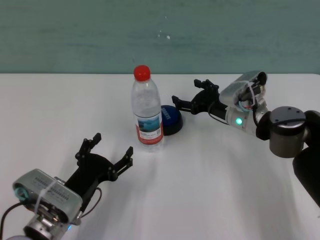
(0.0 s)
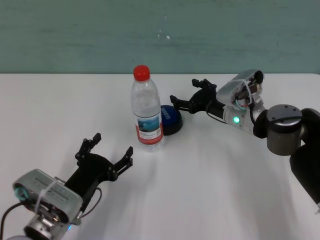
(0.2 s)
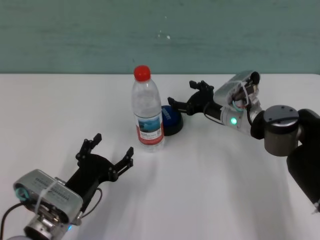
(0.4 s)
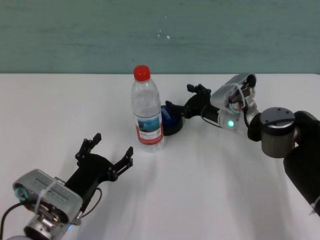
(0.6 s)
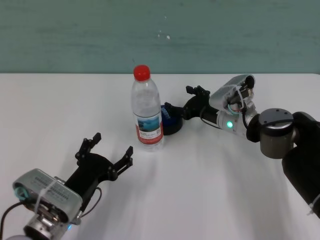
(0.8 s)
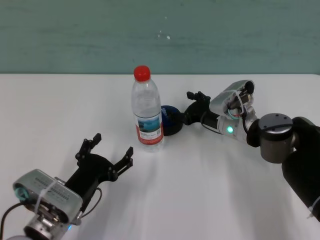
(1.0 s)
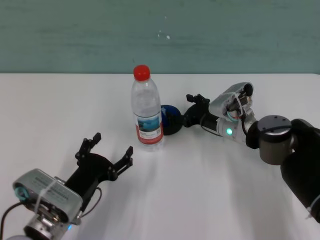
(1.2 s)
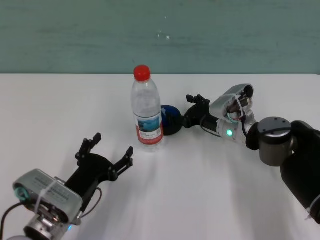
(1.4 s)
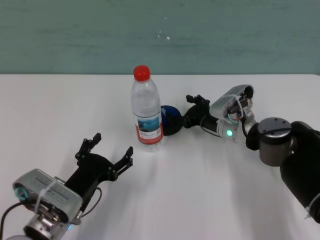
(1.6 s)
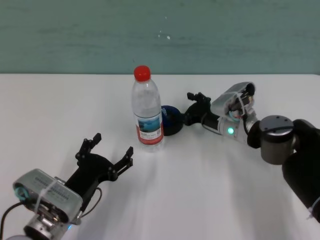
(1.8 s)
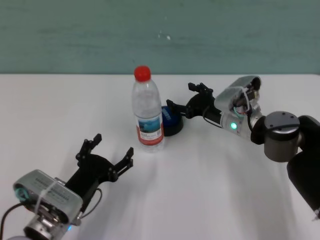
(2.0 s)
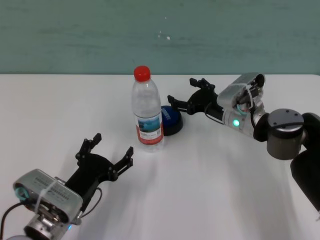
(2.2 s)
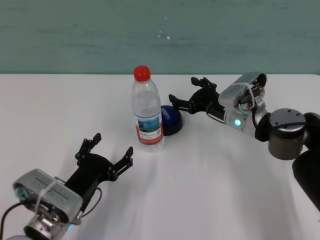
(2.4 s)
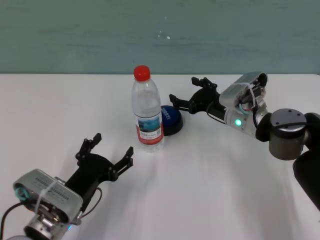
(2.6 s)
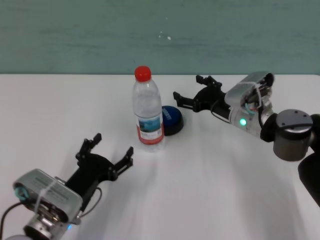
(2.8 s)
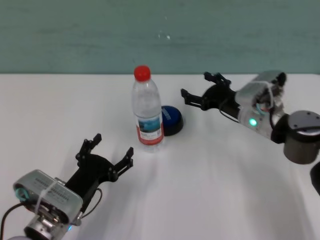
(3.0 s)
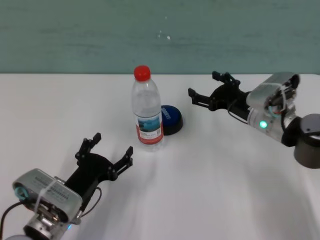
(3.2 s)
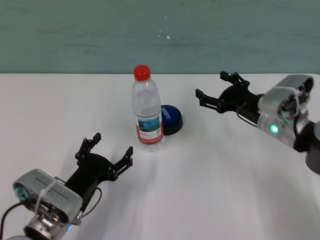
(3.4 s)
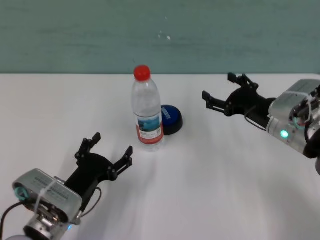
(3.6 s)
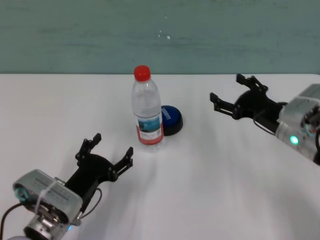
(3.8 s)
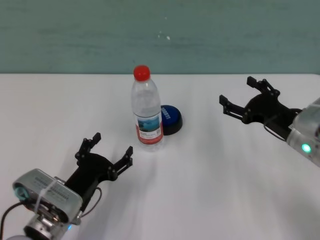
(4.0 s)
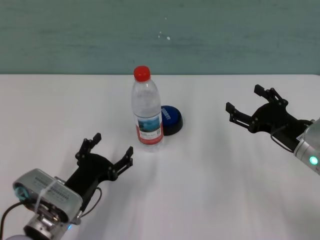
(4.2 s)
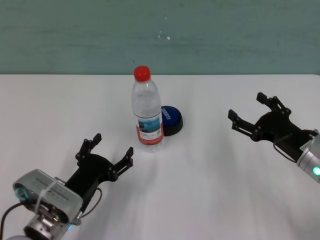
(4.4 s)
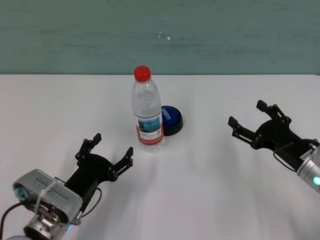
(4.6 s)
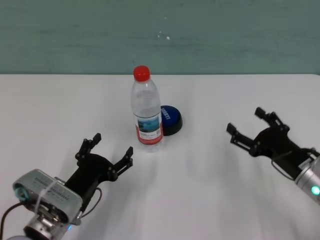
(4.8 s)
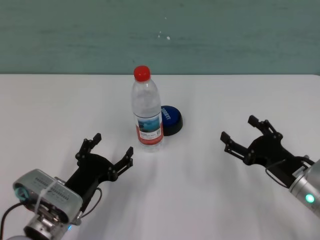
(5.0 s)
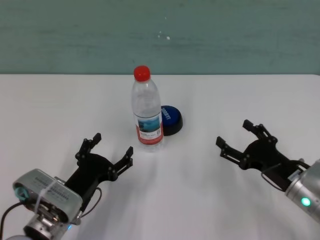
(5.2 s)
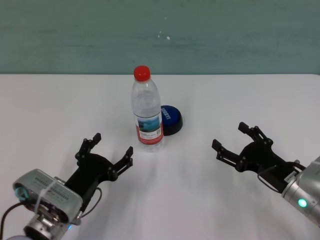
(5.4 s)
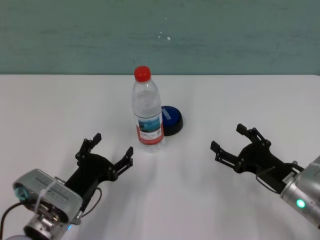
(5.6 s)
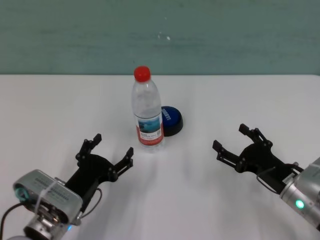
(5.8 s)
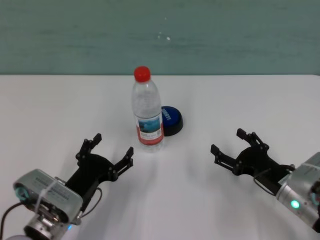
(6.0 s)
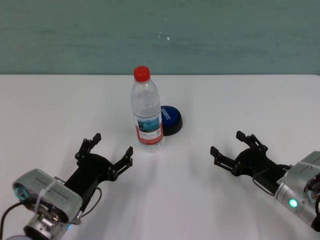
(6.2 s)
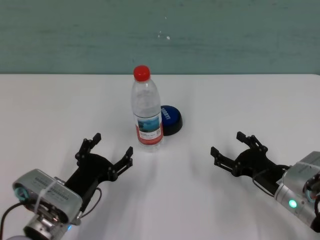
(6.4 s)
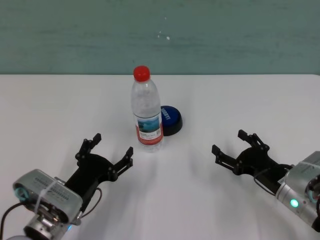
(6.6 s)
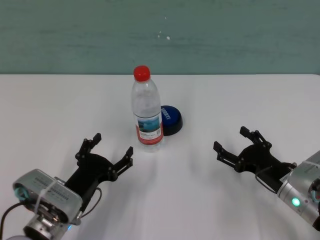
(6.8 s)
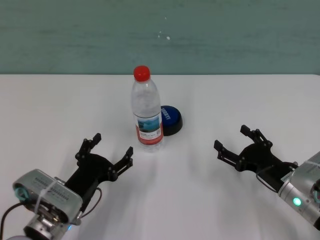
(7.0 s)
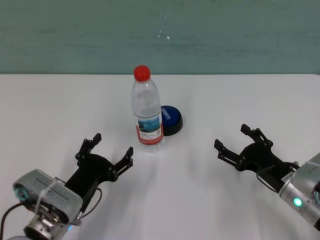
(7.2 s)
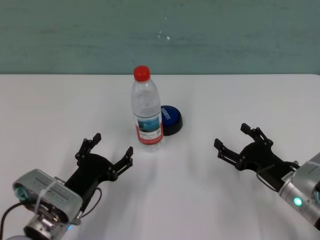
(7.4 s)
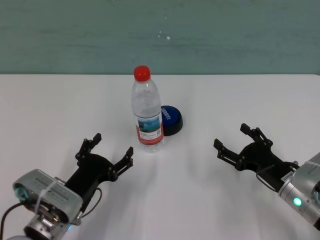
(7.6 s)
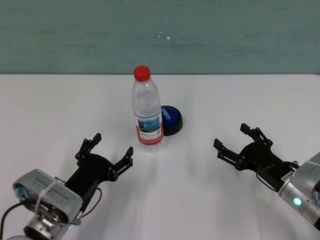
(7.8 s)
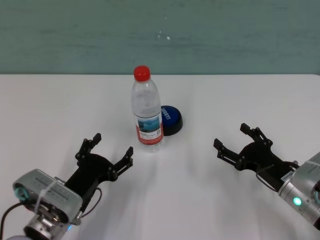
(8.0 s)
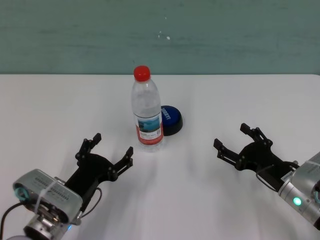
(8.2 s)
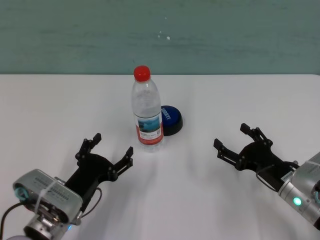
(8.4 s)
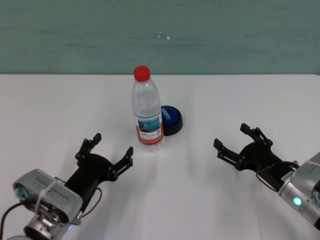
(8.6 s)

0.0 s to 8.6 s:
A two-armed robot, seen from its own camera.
Task of the whole recording: after avoiding the water bottle on the table, press the button.
Step, 0.0 to 2.0 s: Press the button blocked by the bottle with right gripper.

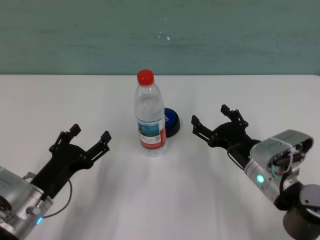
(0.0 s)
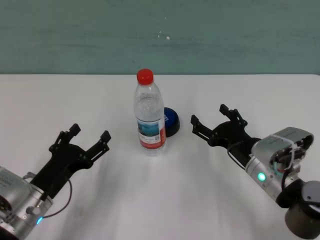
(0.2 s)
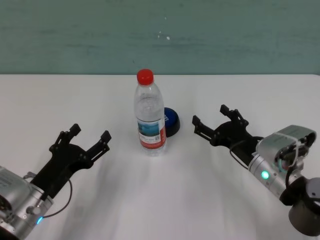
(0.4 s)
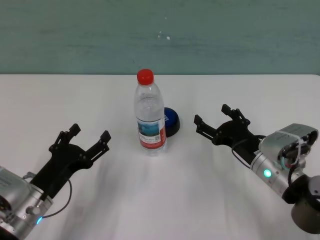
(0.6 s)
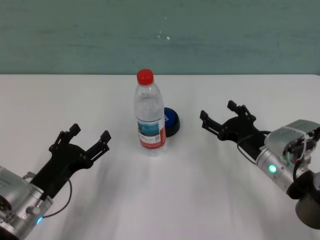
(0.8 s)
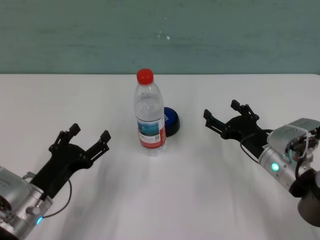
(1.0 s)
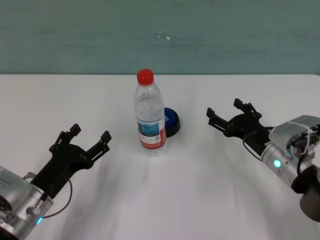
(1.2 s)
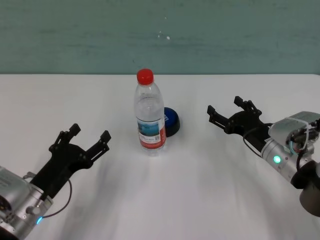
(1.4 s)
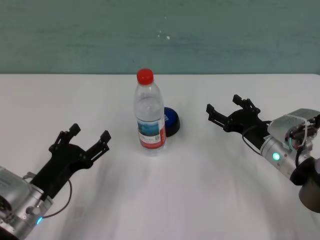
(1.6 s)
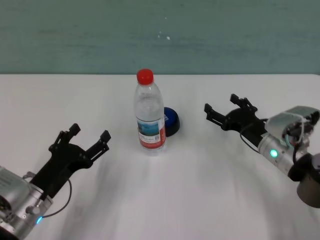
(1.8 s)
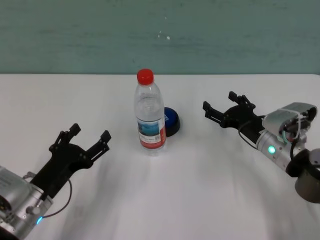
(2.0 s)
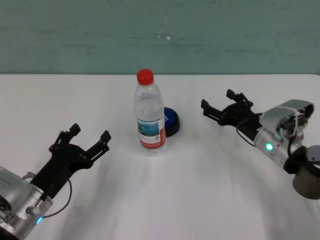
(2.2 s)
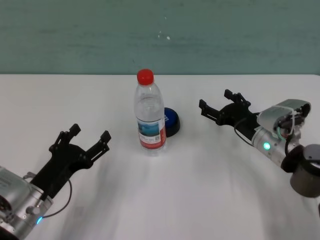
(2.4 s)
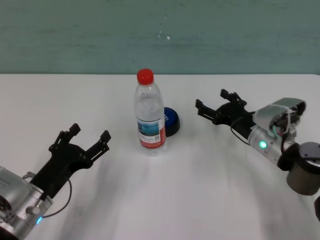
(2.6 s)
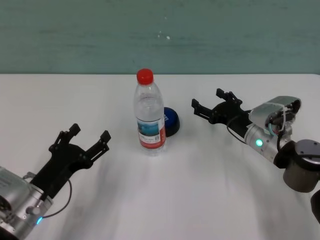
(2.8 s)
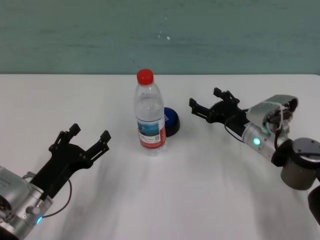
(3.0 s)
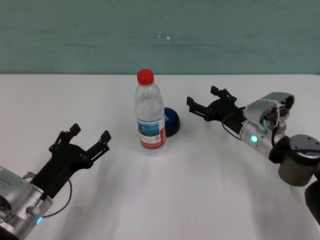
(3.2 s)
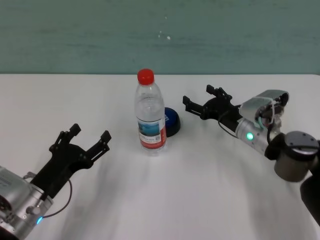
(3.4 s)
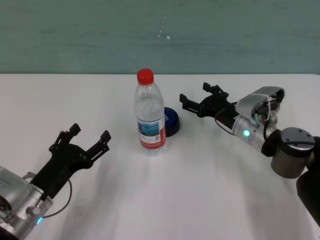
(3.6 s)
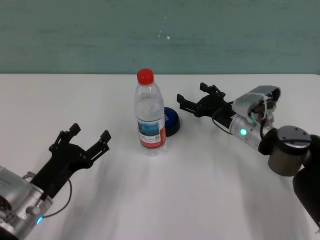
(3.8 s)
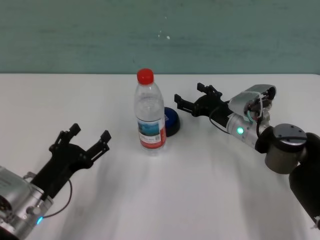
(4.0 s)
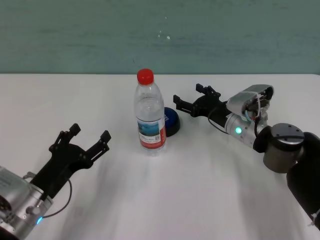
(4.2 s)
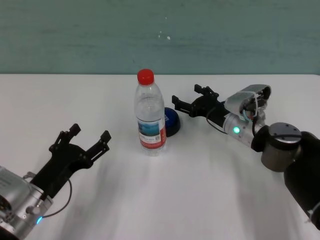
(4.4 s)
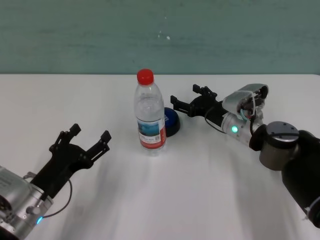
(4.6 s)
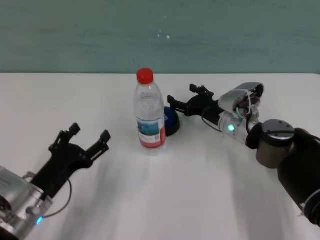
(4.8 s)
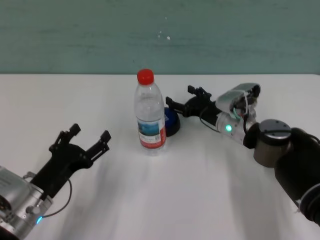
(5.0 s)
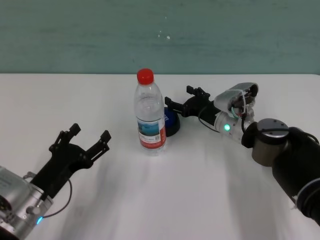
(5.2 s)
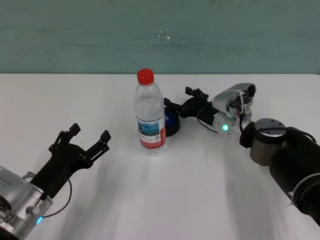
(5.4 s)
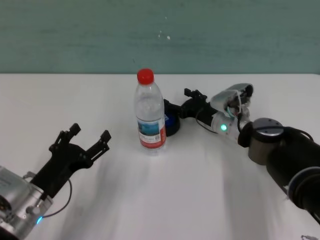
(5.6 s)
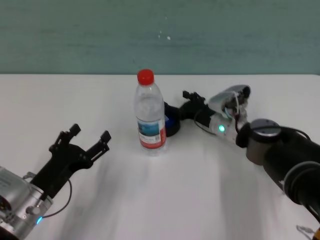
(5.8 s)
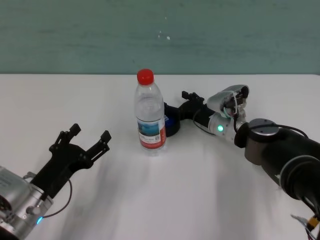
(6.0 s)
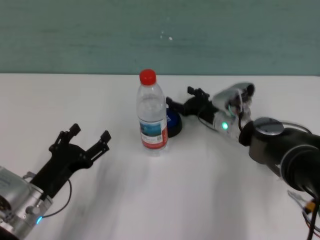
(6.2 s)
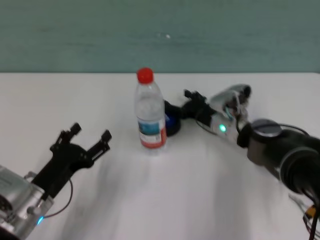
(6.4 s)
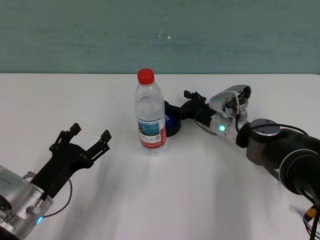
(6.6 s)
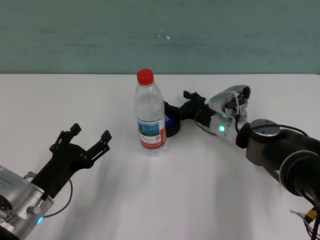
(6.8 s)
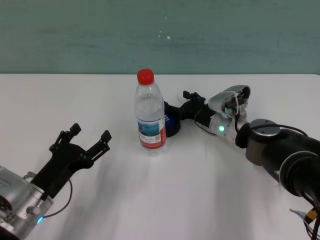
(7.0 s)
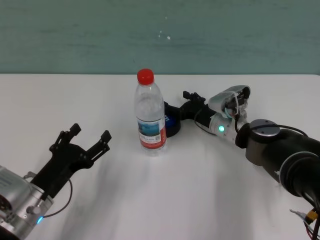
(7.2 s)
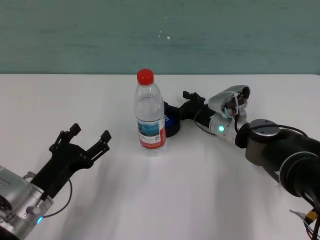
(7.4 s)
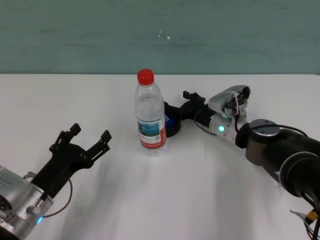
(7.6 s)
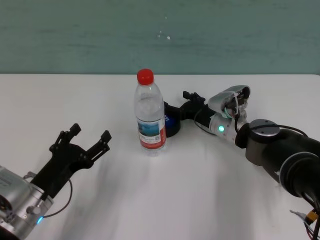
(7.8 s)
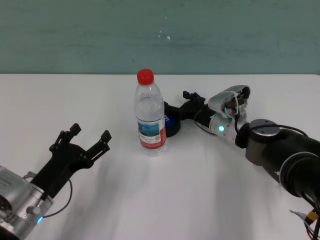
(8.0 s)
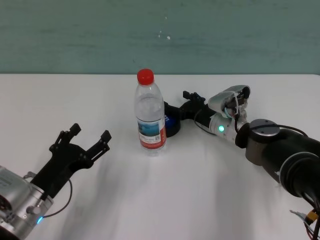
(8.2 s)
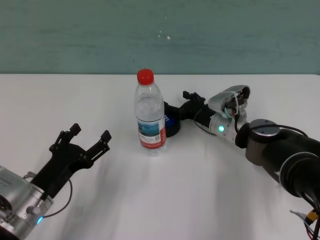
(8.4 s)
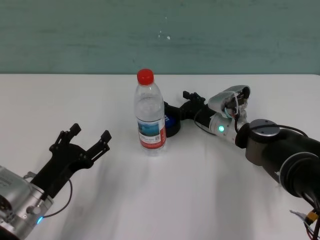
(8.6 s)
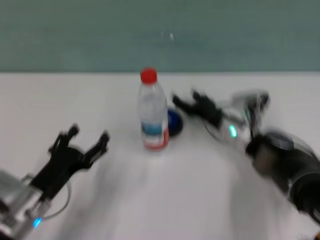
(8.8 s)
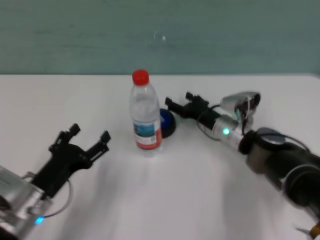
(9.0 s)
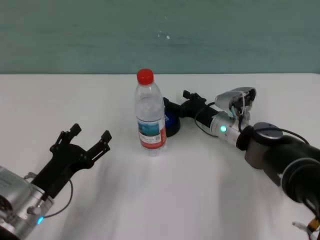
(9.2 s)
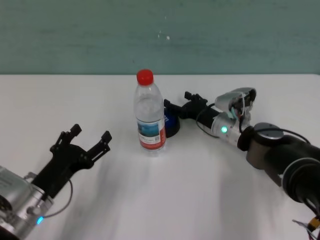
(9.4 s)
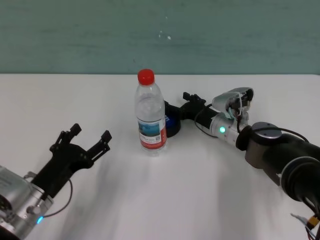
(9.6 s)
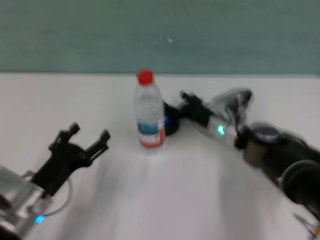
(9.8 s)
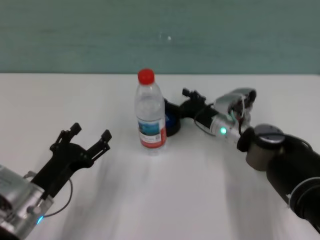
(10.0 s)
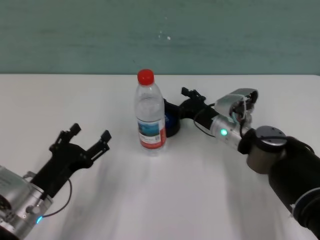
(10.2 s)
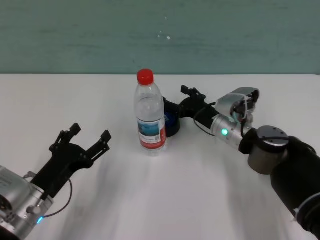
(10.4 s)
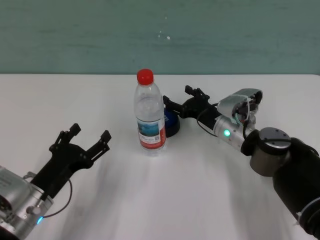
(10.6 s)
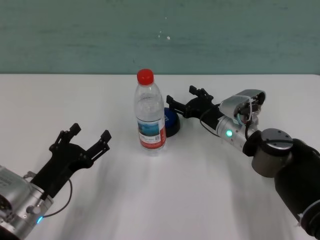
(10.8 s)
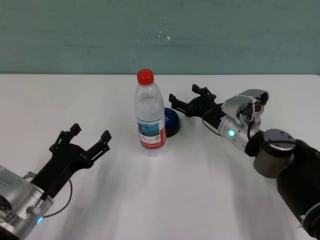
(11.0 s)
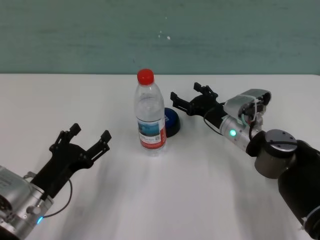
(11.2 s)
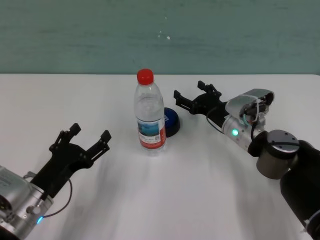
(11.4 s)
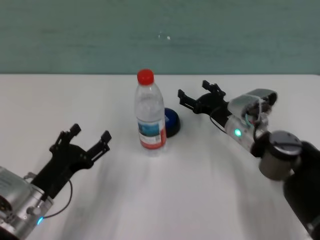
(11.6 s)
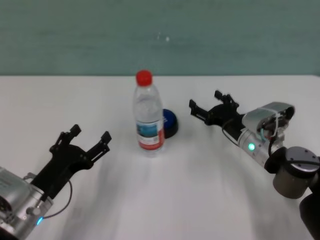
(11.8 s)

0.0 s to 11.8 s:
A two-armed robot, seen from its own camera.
Task of the whole recording: after avoiding the water bottle on the table, press the button.
Step, 0.0 to 9.6 s: Press the button blocked by the bottle with right gripper.
